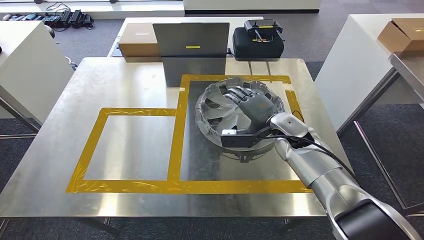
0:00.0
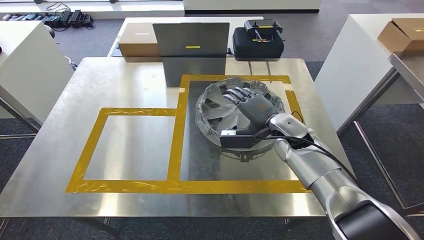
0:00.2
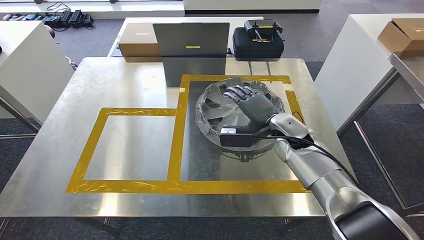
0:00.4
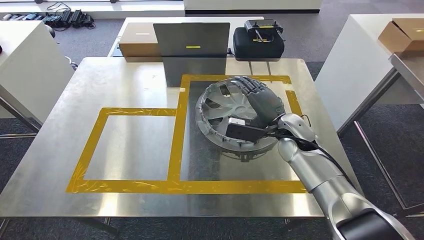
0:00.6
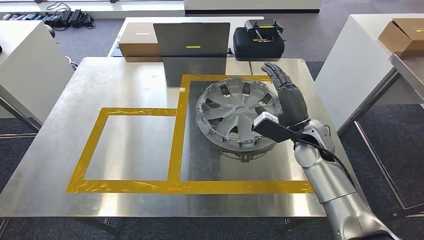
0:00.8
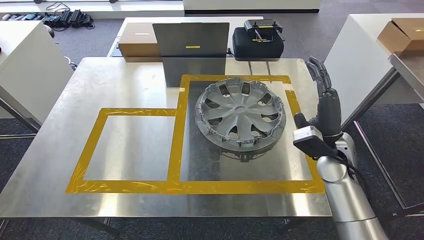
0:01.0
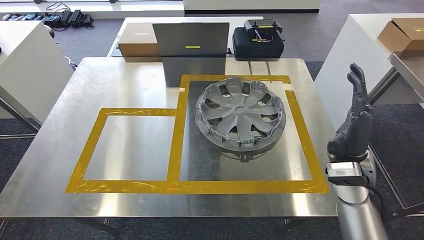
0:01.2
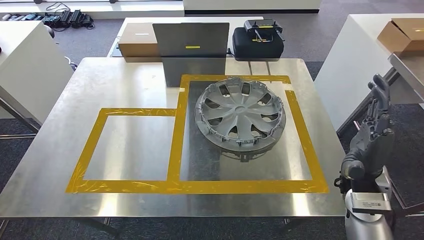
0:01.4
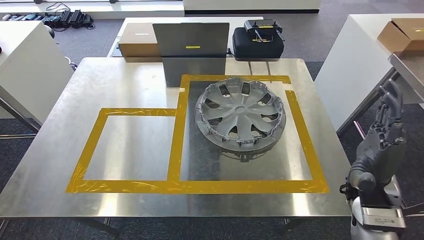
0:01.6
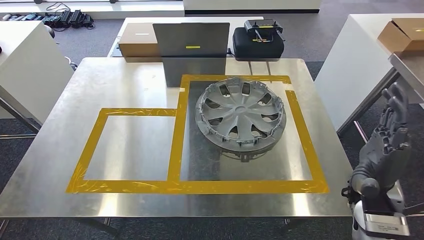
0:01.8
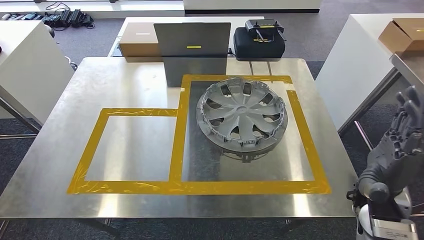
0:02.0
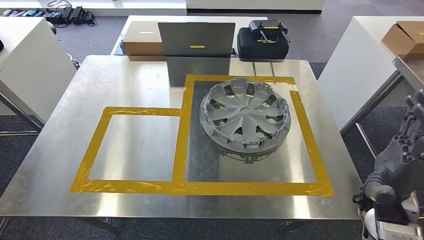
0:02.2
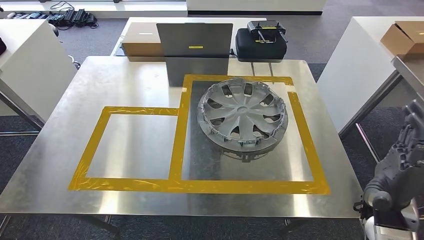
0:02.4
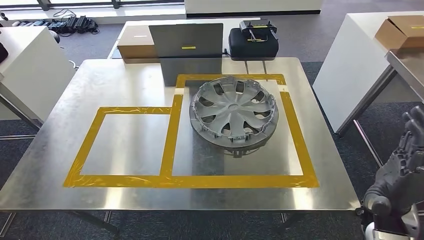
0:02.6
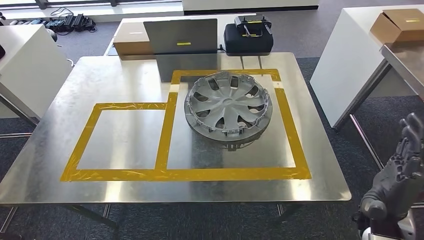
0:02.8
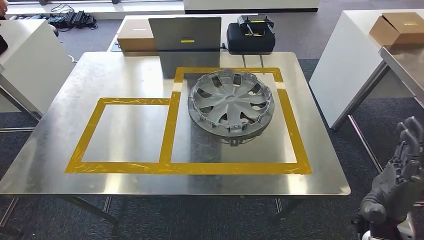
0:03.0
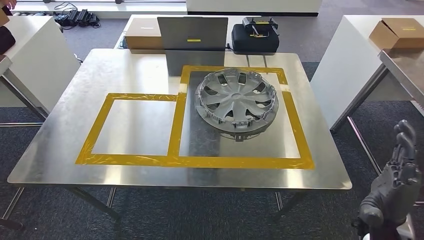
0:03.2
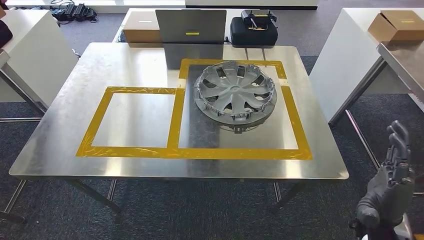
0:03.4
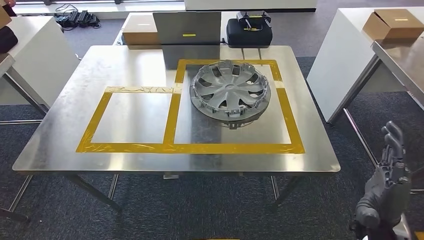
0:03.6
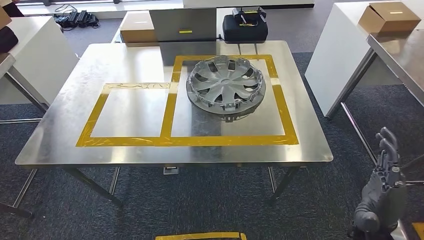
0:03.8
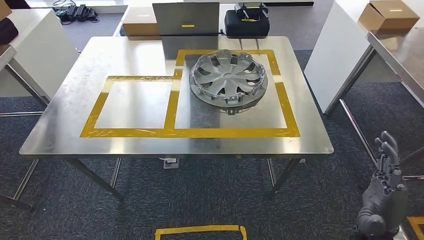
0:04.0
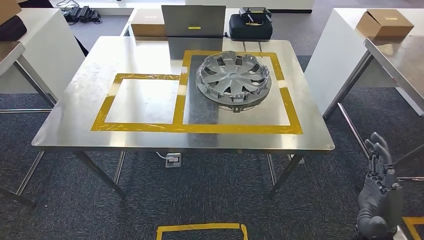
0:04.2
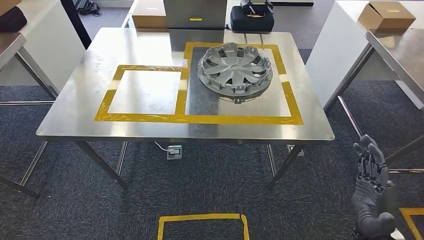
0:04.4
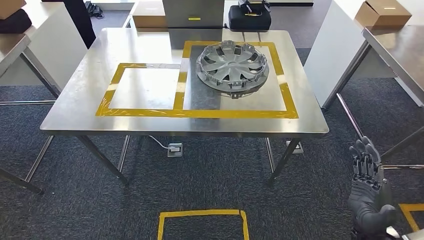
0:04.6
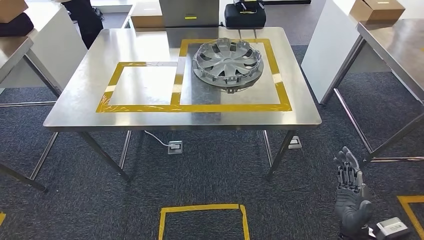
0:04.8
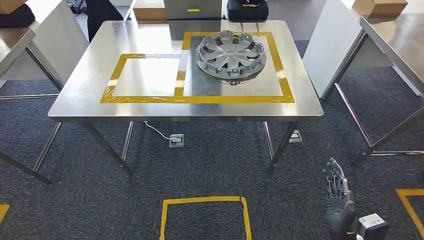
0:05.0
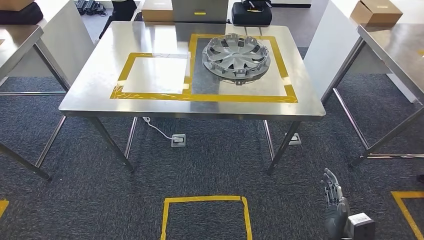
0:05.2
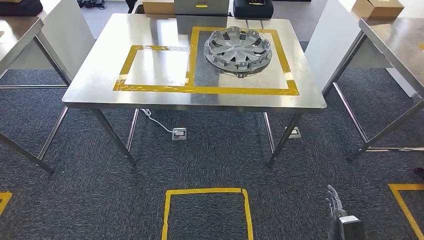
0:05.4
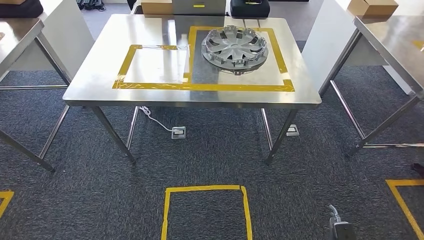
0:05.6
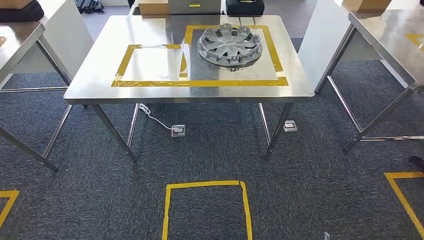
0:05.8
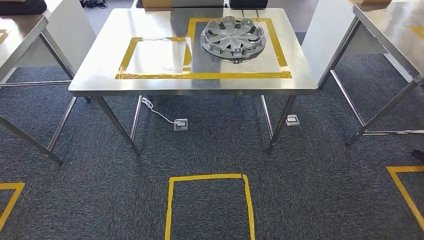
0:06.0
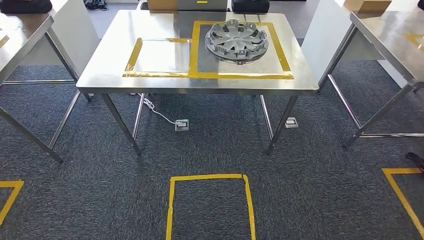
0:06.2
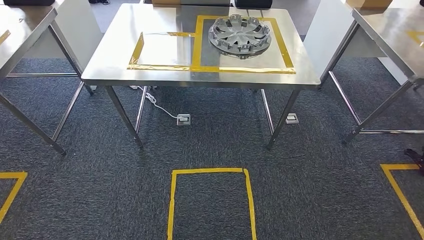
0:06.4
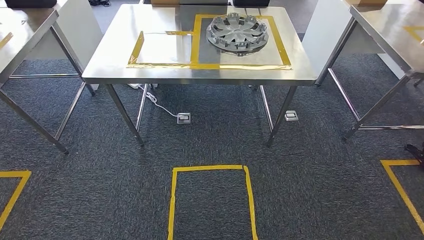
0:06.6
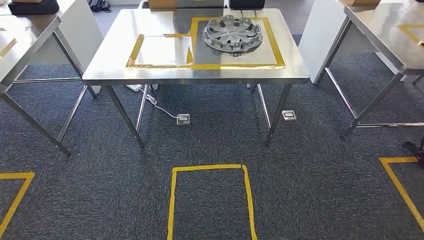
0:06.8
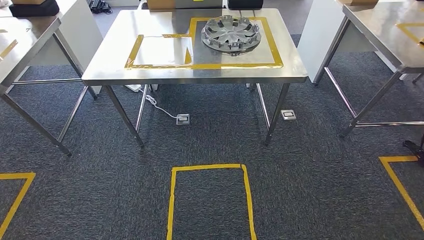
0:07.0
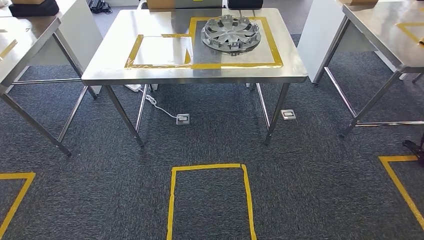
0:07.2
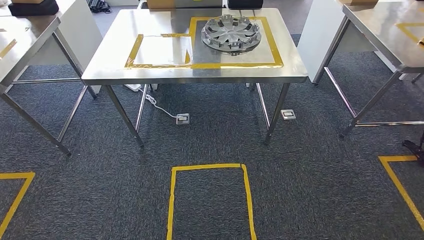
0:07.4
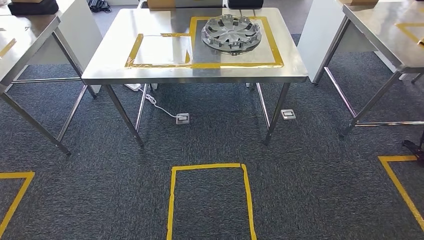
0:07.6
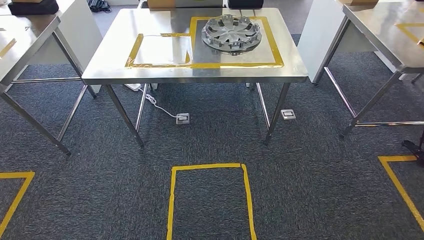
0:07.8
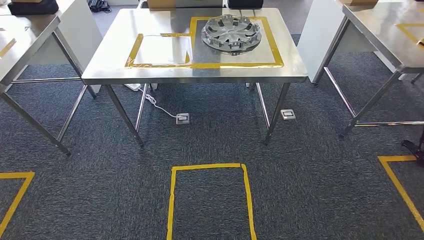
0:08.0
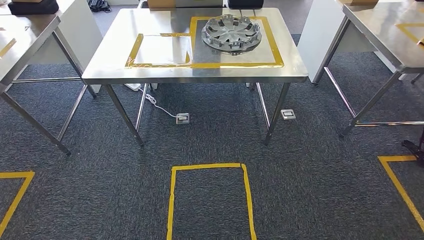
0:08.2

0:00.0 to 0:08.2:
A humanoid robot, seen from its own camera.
Step, 0:01.0 to 0:08.2: Move to the initial position at the workbench.
0:00.0 to 0:01.6: The right hand moves backward and to the right, about 20 cm.
0:06.6 to 0:08.2: There are only small adjustments of the hands.

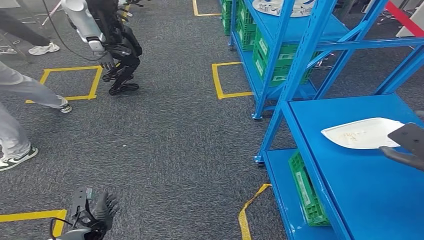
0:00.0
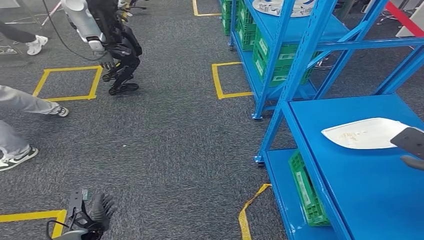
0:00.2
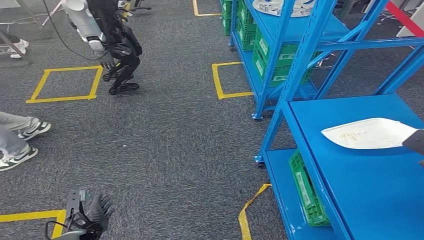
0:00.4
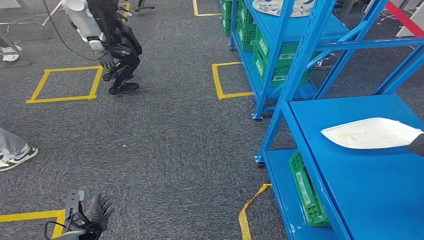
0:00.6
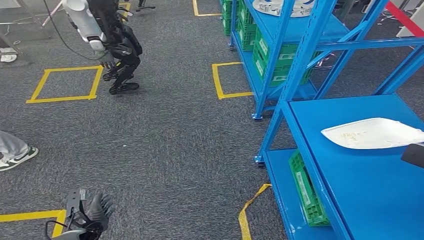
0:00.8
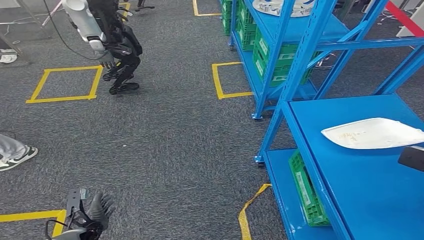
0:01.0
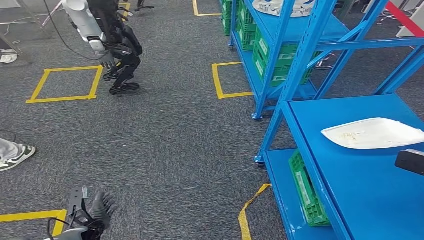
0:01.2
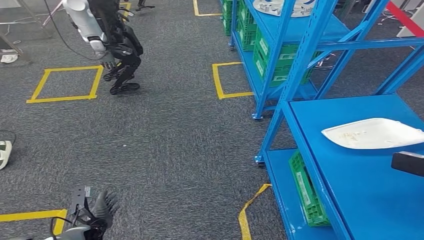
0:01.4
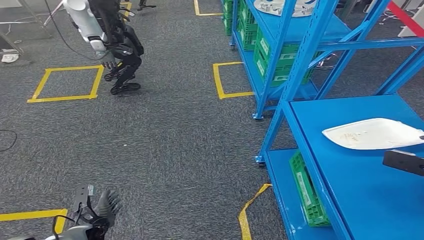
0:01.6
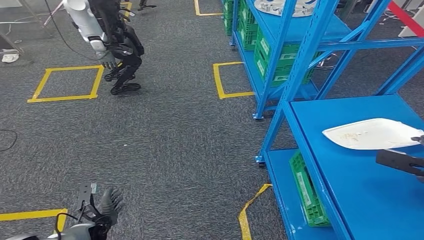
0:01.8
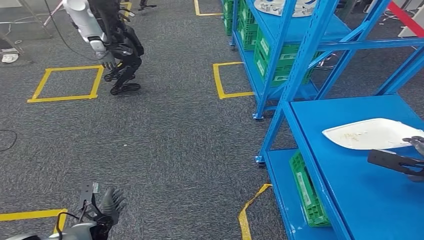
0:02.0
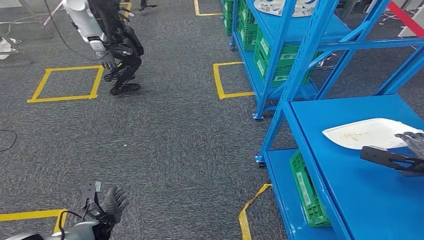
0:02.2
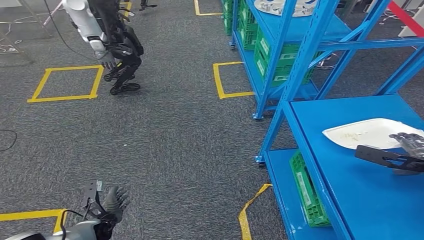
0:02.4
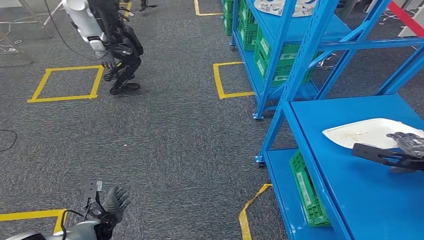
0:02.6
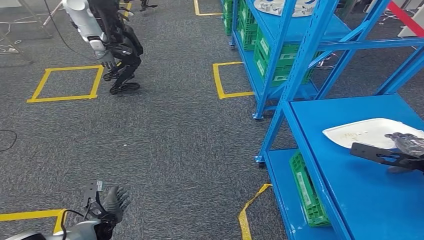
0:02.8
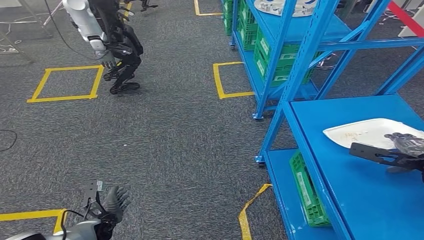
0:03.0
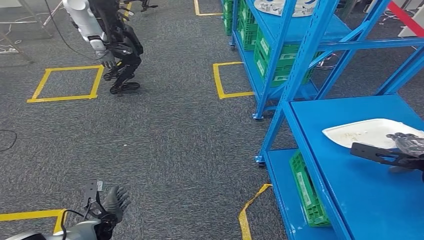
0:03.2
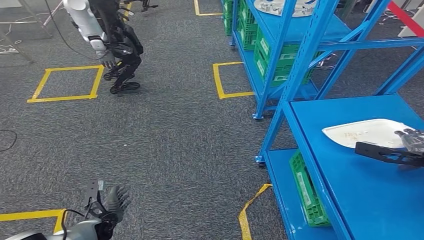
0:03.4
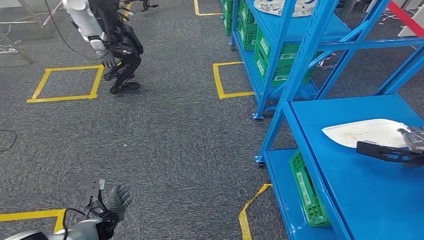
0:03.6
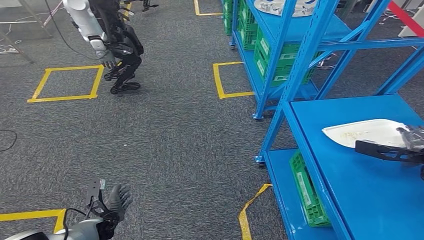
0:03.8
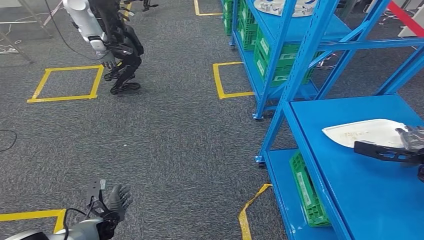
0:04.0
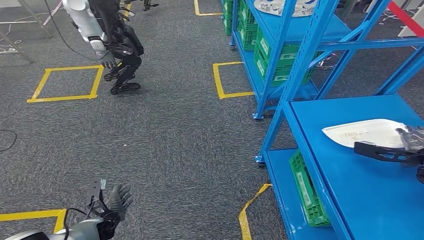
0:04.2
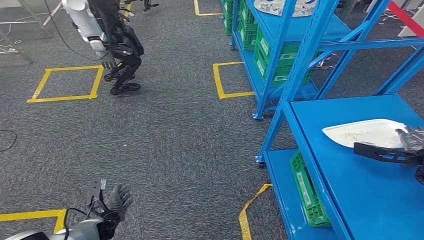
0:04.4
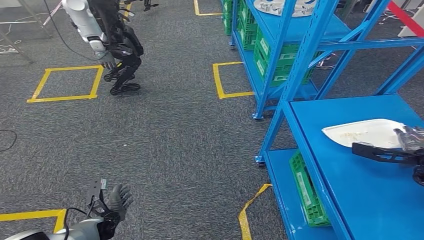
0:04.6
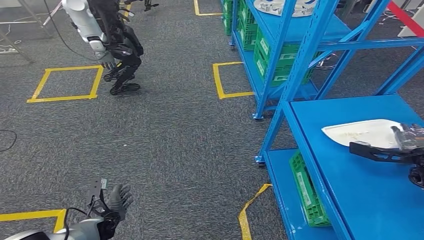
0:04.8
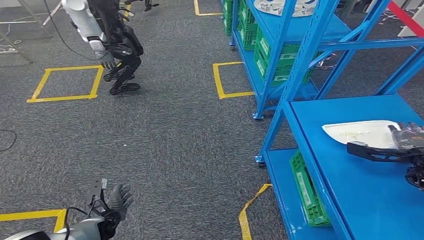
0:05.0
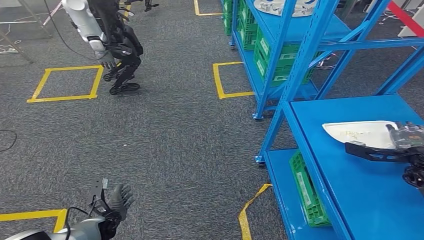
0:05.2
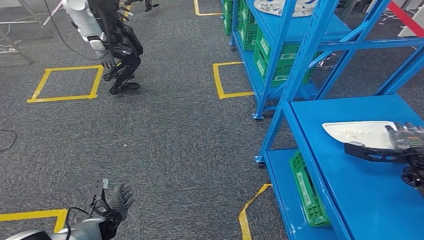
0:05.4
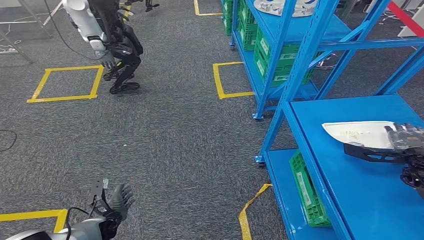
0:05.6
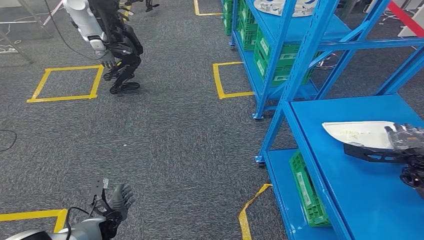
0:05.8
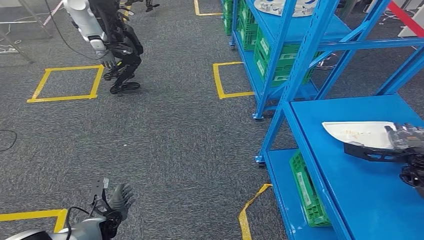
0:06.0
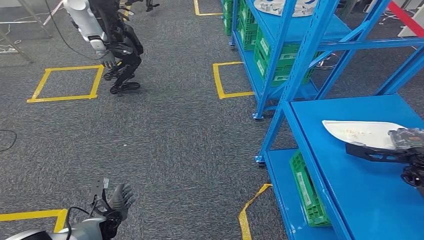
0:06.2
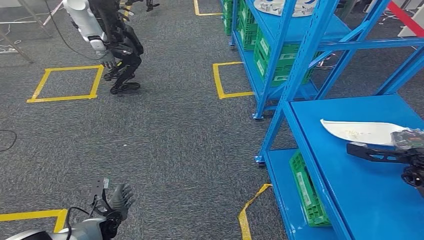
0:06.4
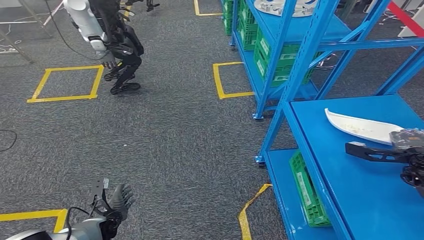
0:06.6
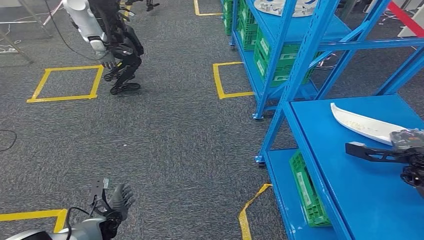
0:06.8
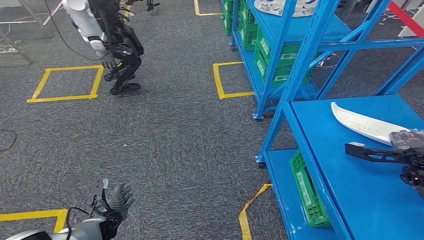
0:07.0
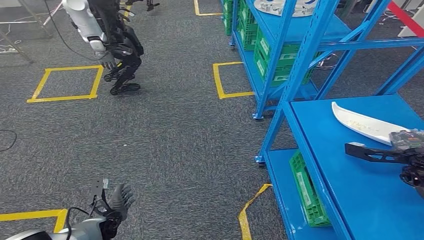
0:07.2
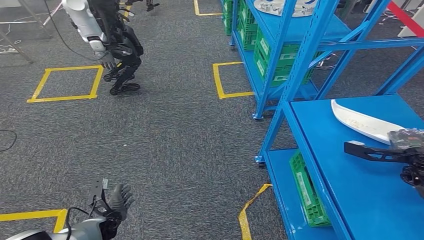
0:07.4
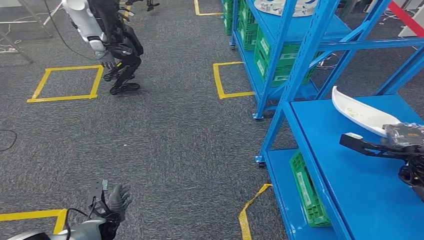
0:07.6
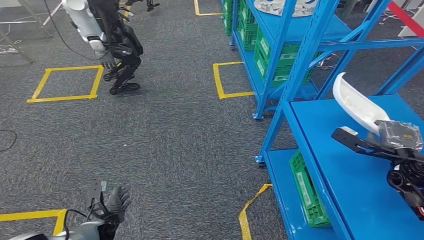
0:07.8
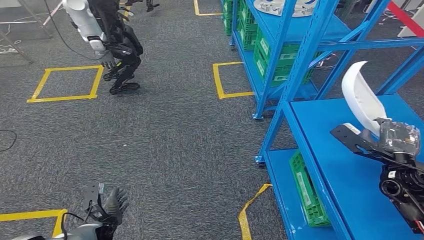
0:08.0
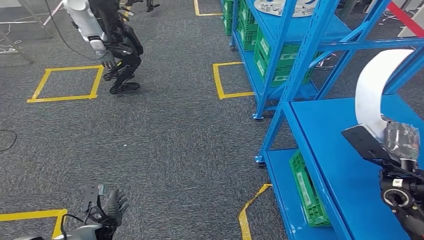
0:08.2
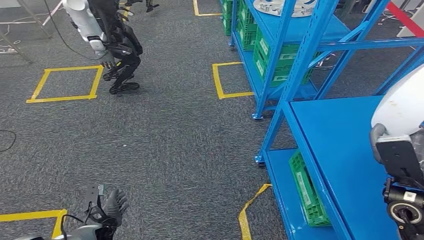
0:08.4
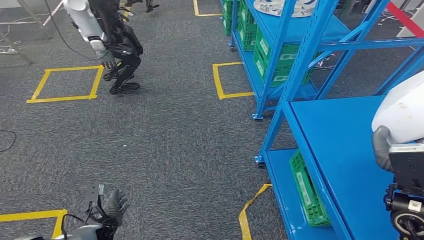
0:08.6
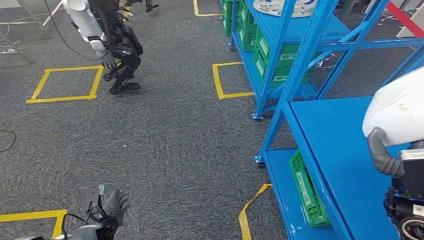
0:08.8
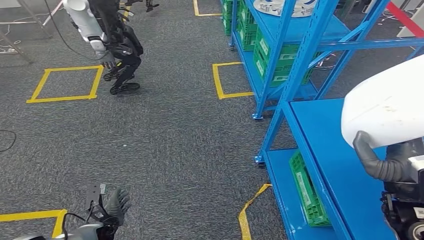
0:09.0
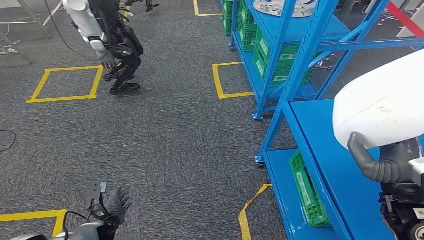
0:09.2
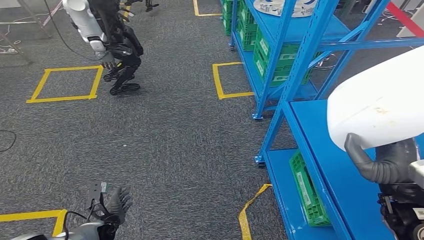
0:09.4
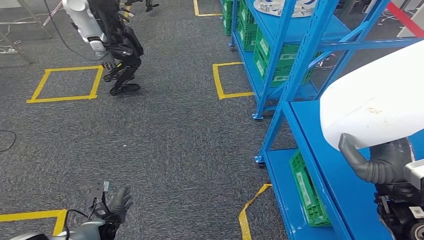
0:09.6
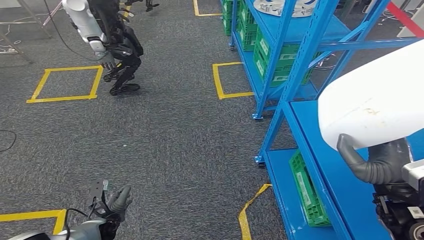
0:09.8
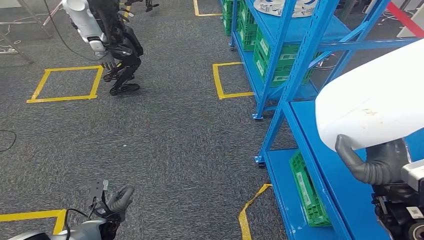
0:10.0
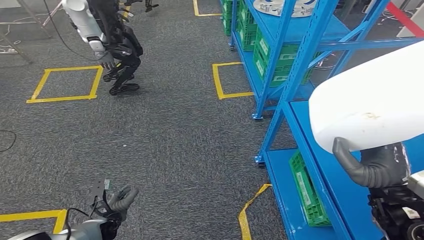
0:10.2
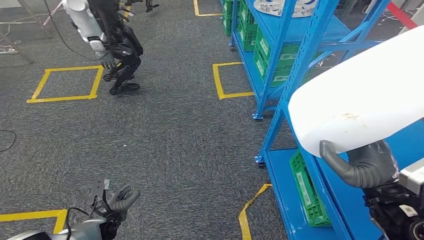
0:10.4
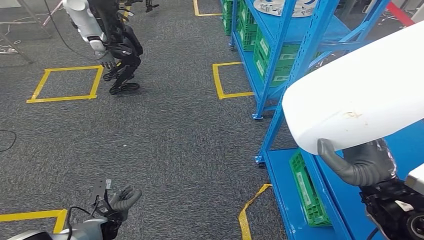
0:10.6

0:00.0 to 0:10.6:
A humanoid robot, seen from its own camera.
Step, 0:00.0 to 0:09.8: Pick up the small component from the shelf.
0:00.0 to 0:01.6: The right hand travels to the right by approximately 5 cm.
0:01.6 to 0:03.0: The right hand shifts roughly 10 cm downward and forward.
0:03.0 to 0:04.6: The hands stay close to where they were, moving slightly.
0:04.6 to 0:07.6: The hands move only a little.
0:07.6 to 0:09.0: The right hand moves backward, to the left and upward, some 20 cm.
